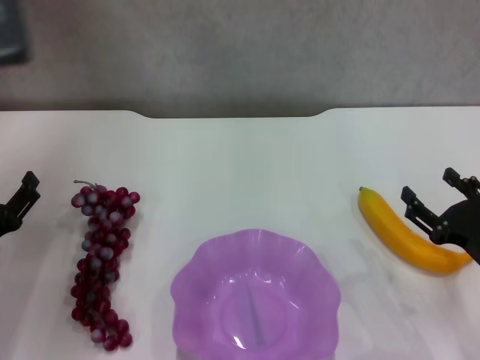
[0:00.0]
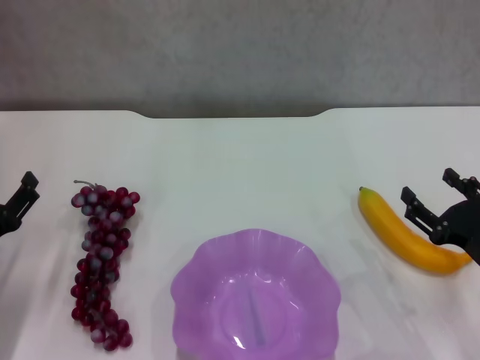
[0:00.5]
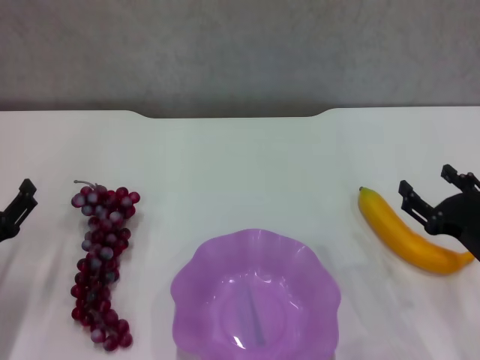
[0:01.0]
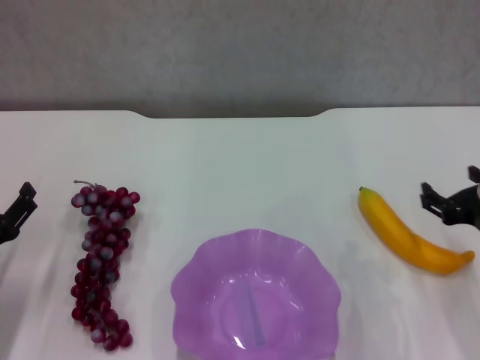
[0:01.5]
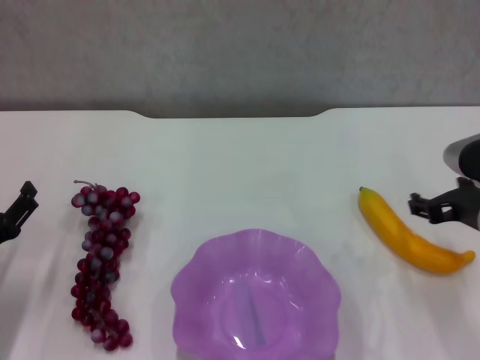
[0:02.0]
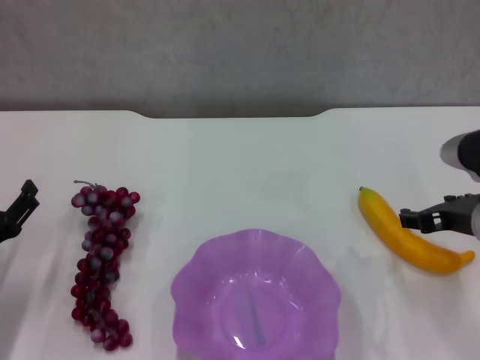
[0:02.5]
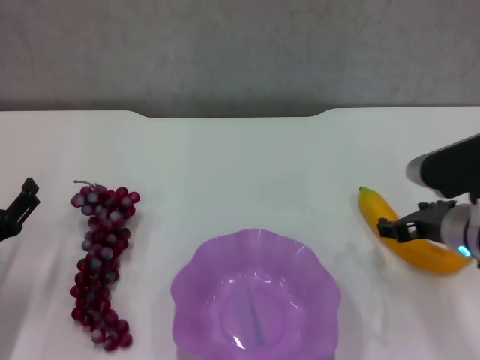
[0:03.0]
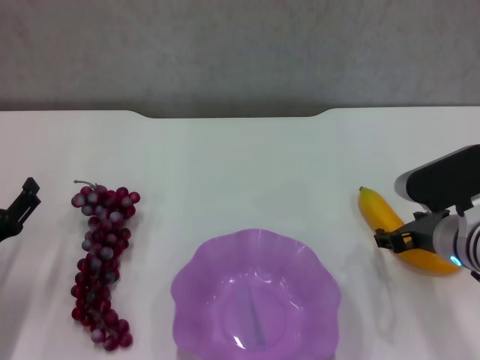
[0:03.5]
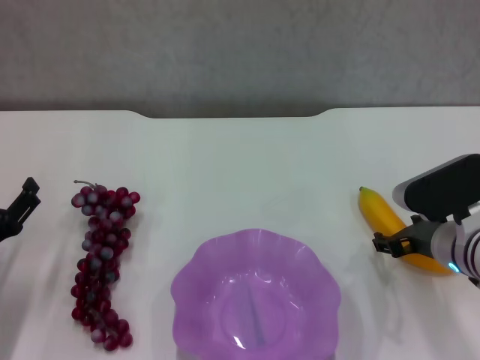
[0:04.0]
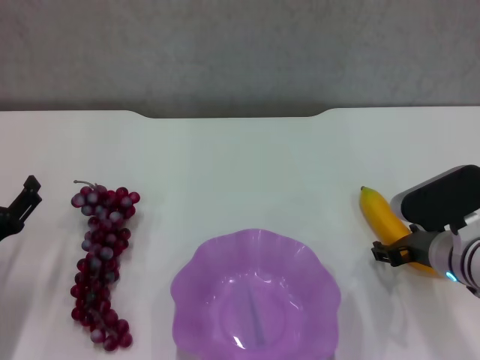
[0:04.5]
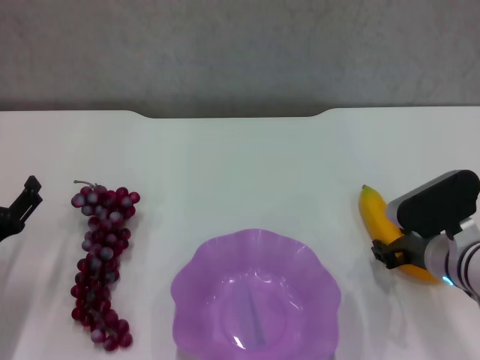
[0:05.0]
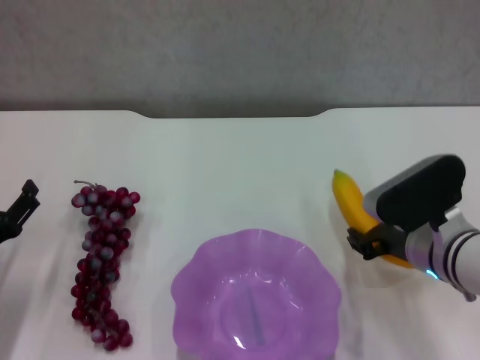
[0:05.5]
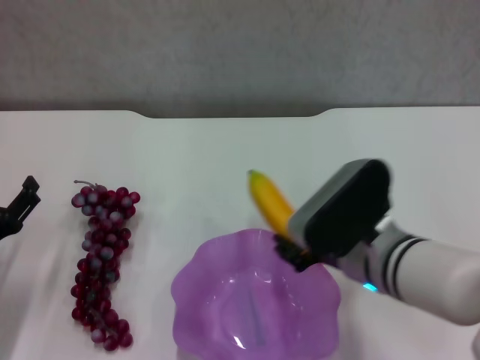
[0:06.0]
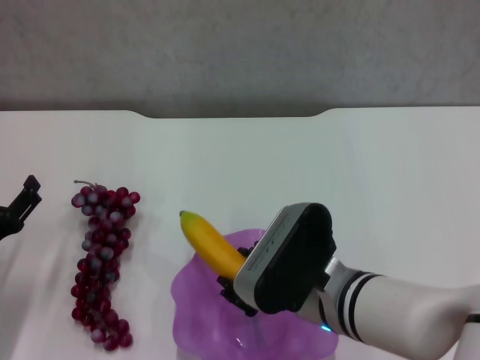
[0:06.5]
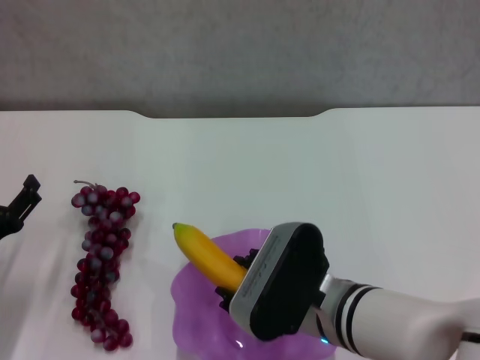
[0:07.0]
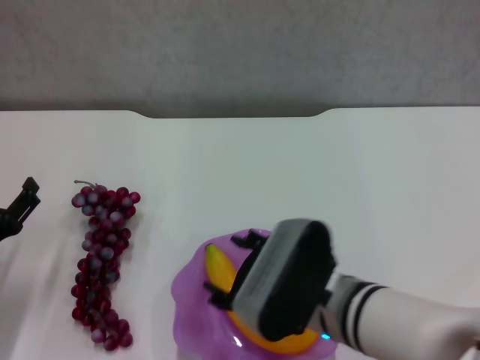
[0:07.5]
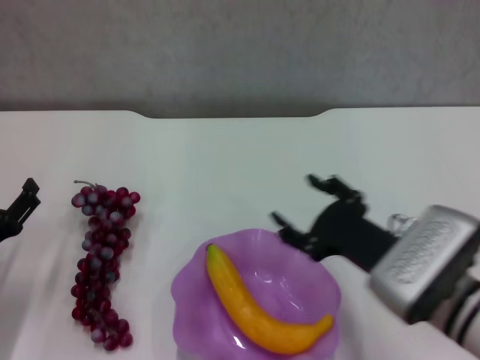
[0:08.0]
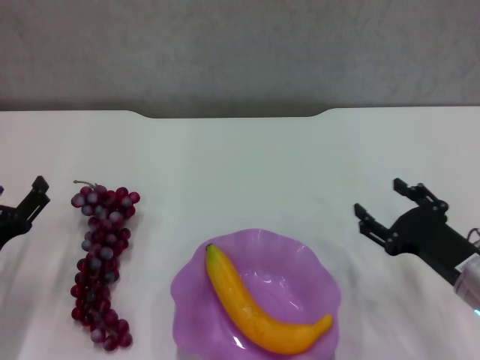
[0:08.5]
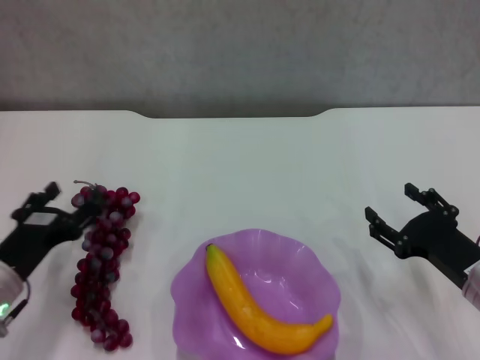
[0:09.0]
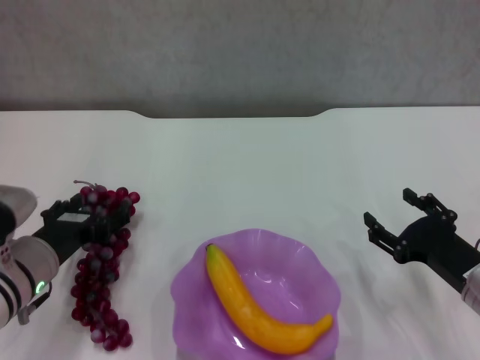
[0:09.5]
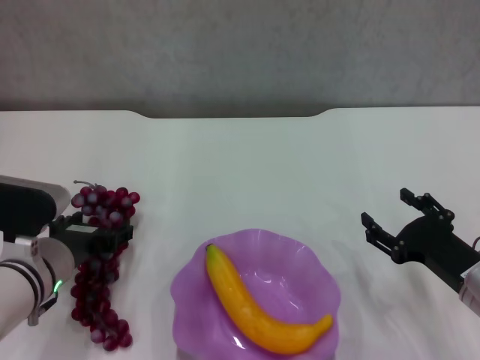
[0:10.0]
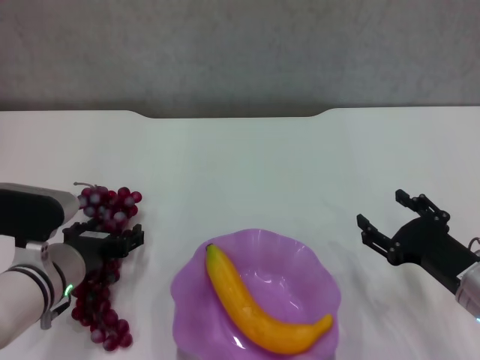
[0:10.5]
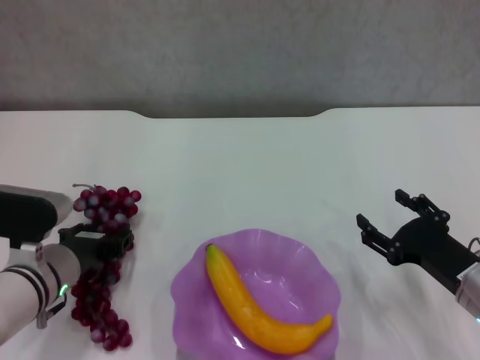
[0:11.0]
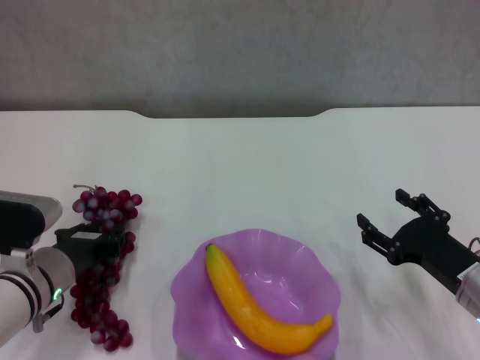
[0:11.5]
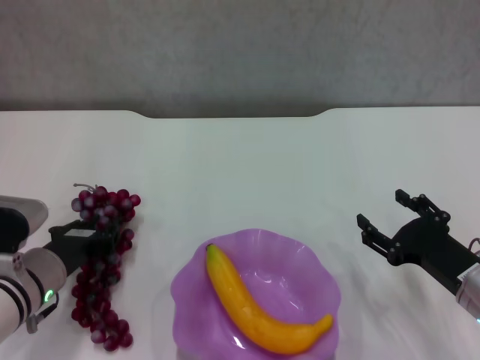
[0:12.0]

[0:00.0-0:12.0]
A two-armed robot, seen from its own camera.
Step, 0:00.0 to 0:04.5: Grasp the banana with right gripper.
Step, 0:05.5 to 0:07.5: Place the banana in the purple plate with right gripper.
Step, 0:08.0 to 0:11.0: Grasp the grape with left gripper.
0:00.0 to 0:02.0: The right gripper travels upward and to the left by roughly 10 cm.
0:02.0 to 0:04.0: The right gripper heads downward, covering about 10 cm.
0:04.0 to 0:06.0: The right gripper goes roughly 15 cm to the left, upward and backward, and closes its fingers.
0:06.0 to 0:08.0: The right gripper travels to the right by roughly 5 cm, and opens.
0:08.0 to 0:10.0: The right gripper shifts approximately 10 cm to the right and downward. The left gripper goes some 10 cm to the right.
0:10.0 to 0:12.0: The left gripper closes.

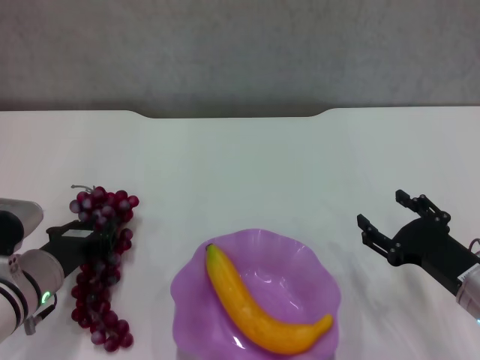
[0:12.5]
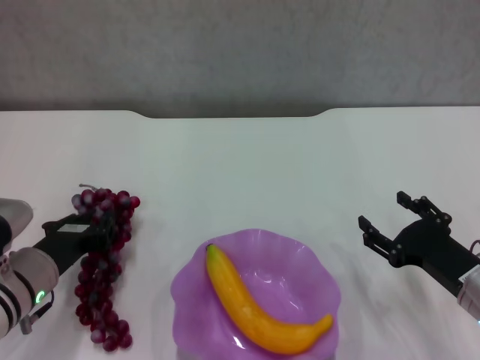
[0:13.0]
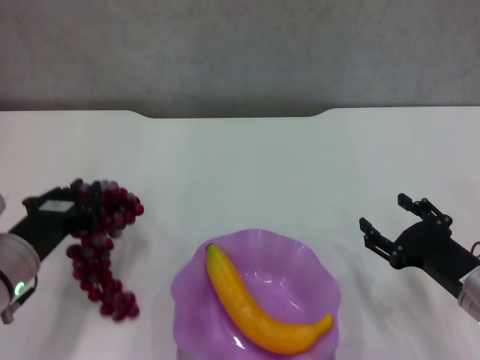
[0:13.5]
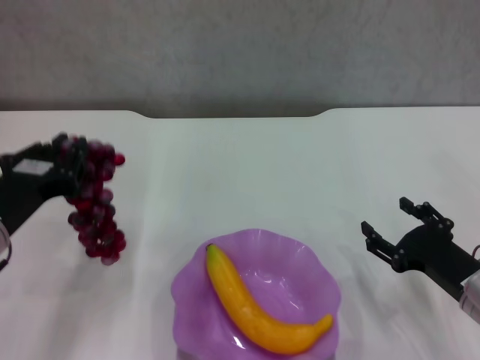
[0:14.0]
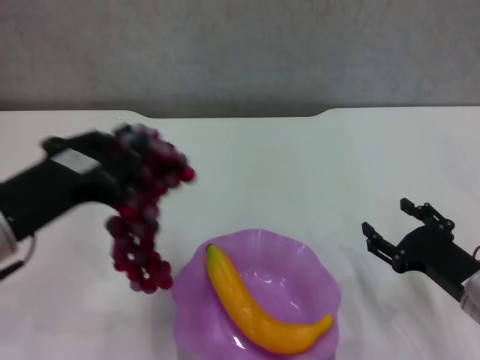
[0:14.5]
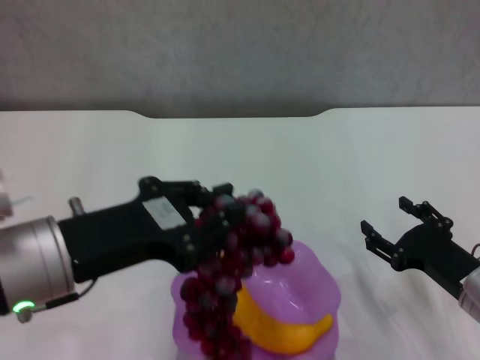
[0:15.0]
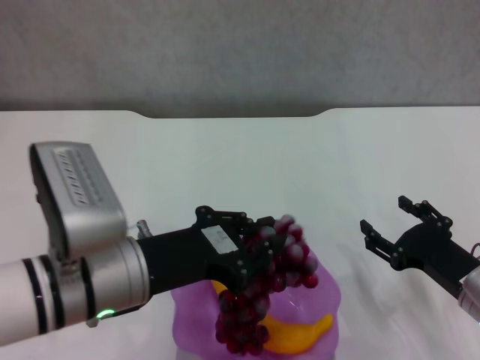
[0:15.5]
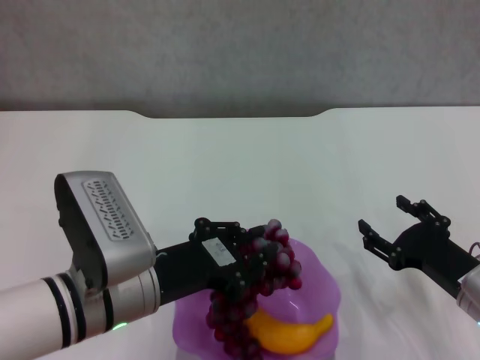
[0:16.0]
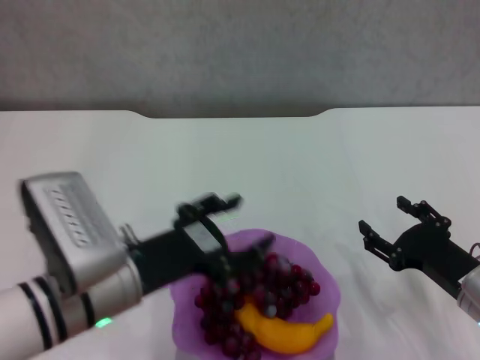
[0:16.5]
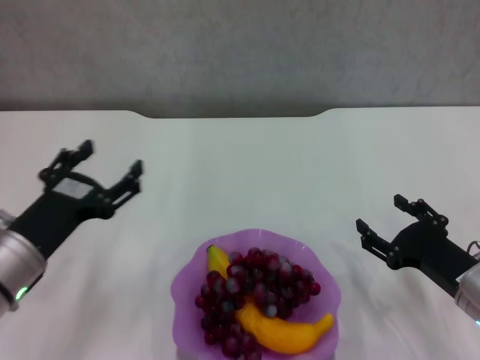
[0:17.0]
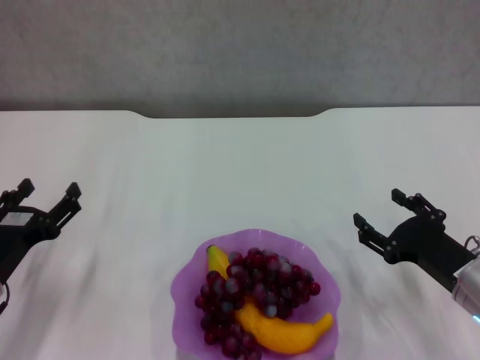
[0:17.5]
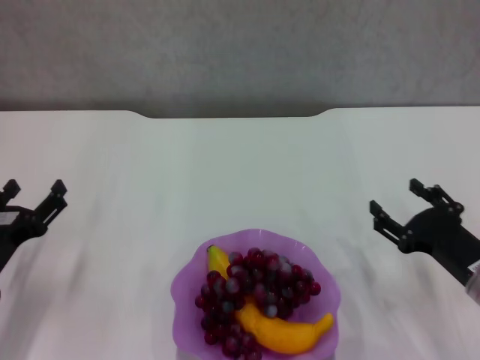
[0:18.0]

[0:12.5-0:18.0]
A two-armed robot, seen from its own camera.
Step, 0:12.5 to 0:16.5: Place the grape in the purple plate with left gripper.
0:12.5 to 0:14.5: The left gripper heads upward and backward, covering roughly 15 cm.
0:14.5 to 0:16.0: The left gripper is displaced to the right and downward by some 10 cm.
0:16.0 to 0:18.0: The left gripper heads to the left and downward, covering approximately 15 cm, and opens its fingers.

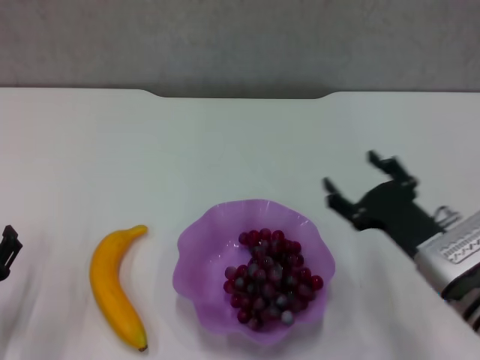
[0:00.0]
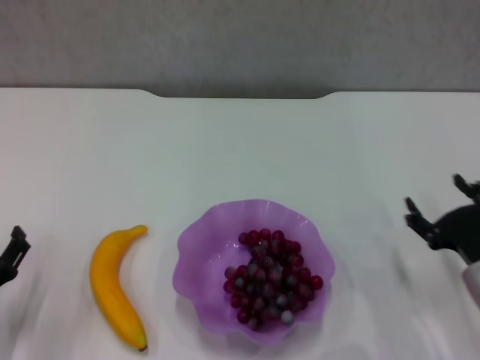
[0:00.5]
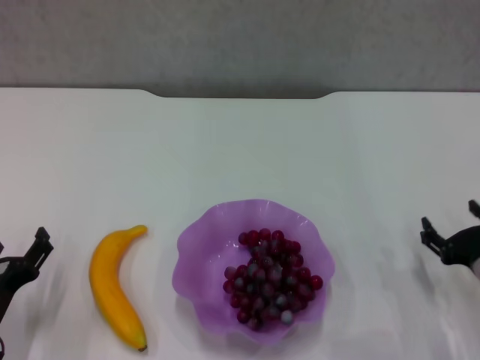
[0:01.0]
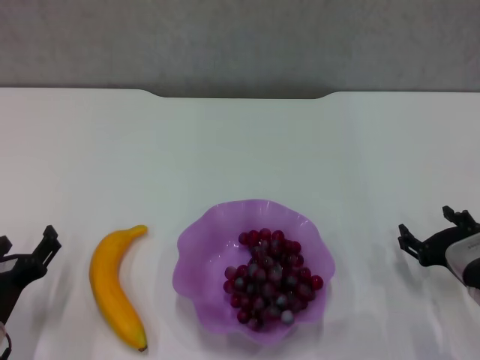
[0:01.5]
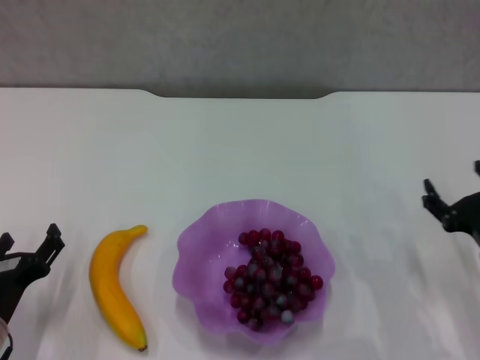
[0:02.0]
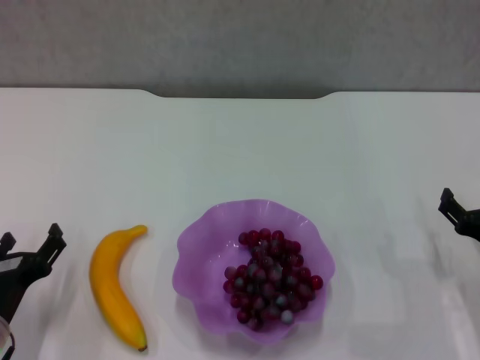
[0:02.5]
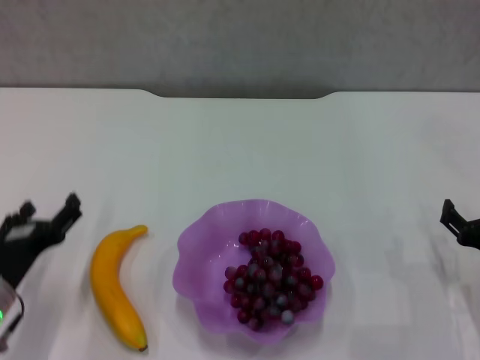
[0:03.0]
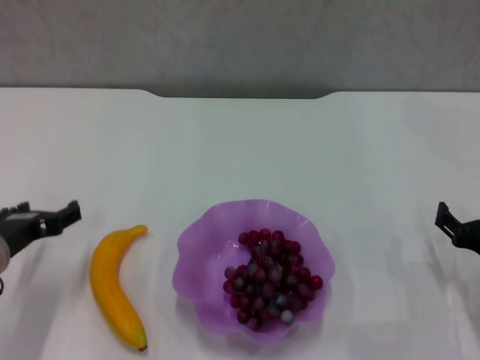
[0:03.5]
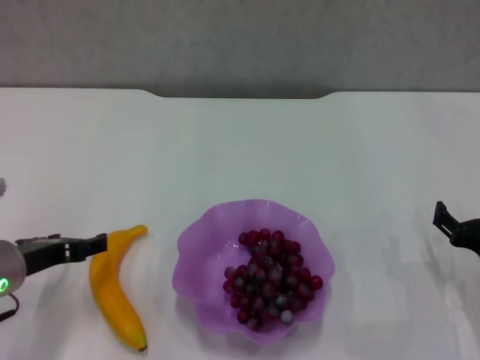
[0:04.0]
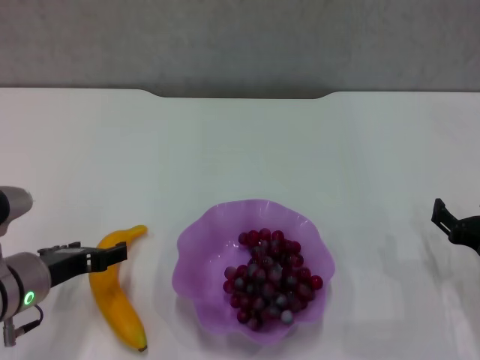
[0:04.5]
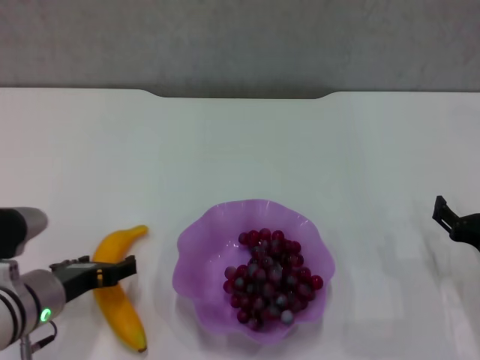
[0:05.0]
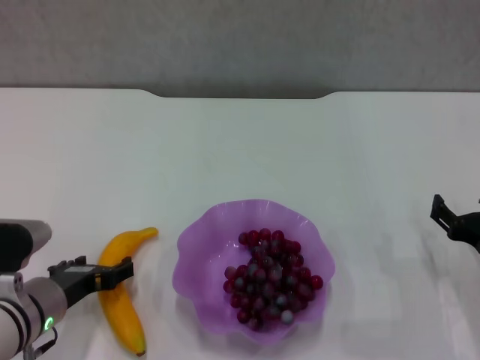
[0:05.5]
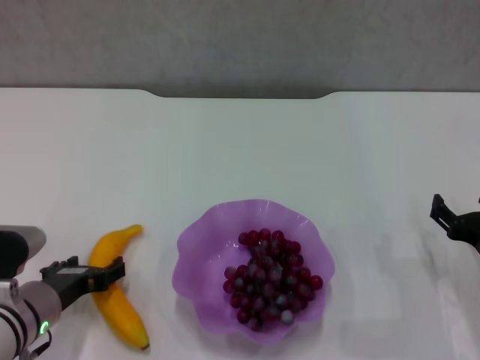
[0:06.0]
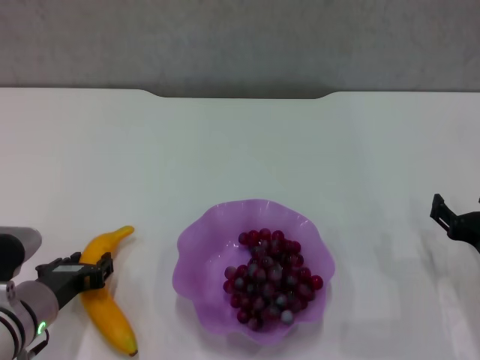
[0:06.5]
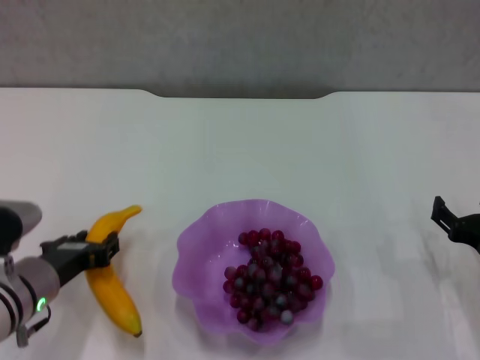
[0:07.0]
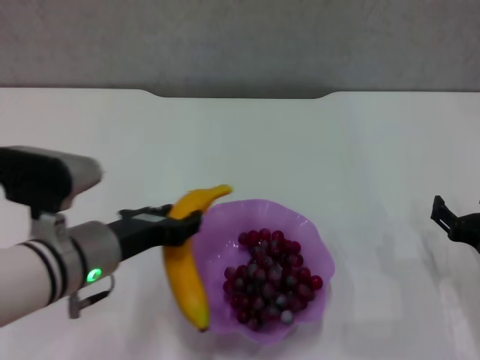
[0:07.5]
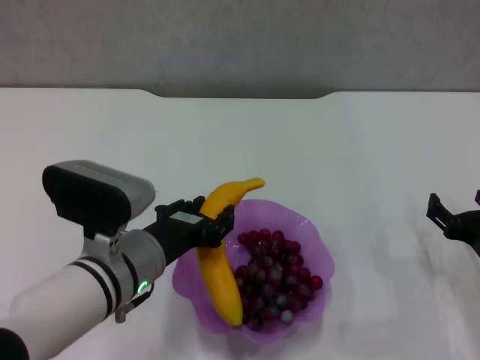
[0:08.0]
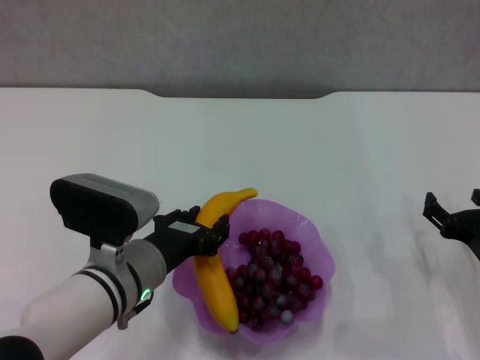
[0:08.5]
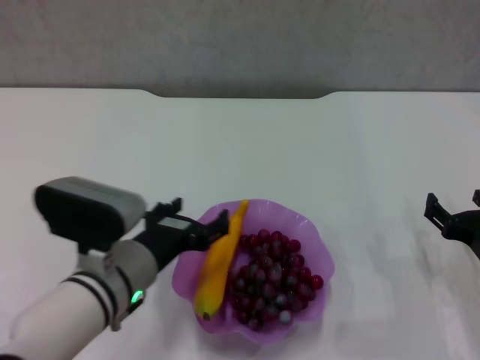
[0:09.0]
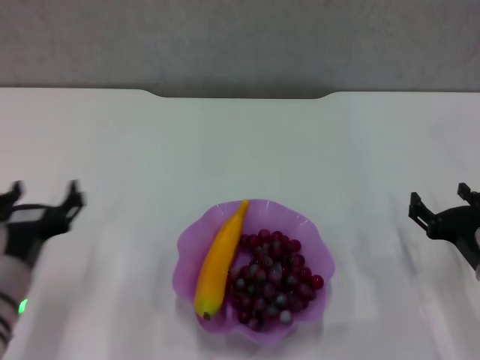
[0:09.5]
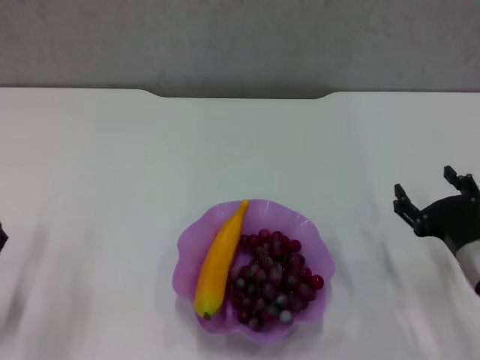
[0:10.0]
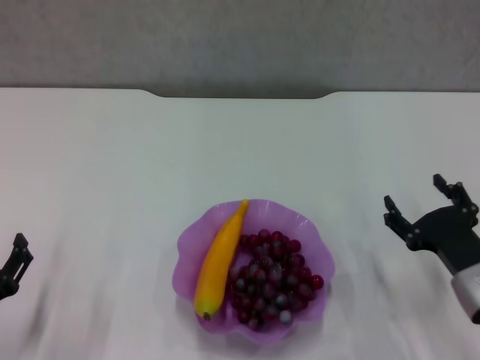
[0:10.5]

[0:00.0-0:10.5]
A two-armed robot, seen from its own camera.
Step, 0:00.0 to 0:06.0: Grasp the banana with left gripper.
Step, 0:06.5 to 0:09.0: Place the banana in the purple plate with left gripper.
0:00.0 to 0:02.0: The right gripper moves to the right, roughly 10 cm.
0:02.0 to 0:04.0: The left gripper is displaced upward and forward by about 10 cm.
0:04.0 to 0:06.5: The left gripper goes roughly 5 cm downward, and closes its fingers.
0:06.5 to 0:08.5: The left gripper travels to the right by about 10 cm.
0:08.5 to 0:10.5: The left gripper heads to the left and backward, covering some 20 cm, and opens up.
